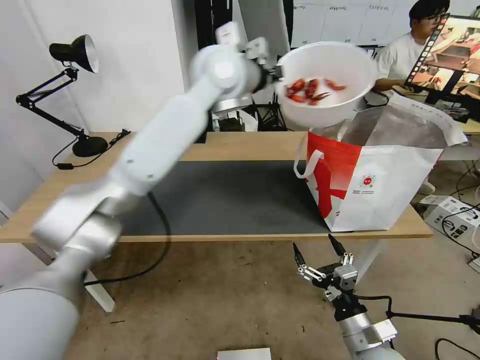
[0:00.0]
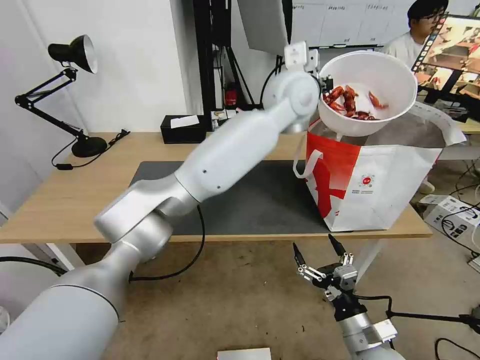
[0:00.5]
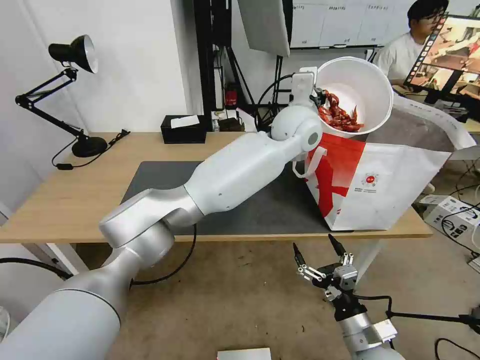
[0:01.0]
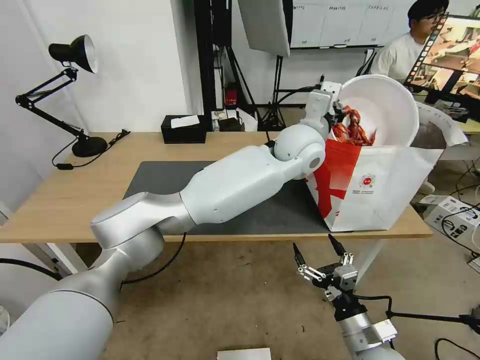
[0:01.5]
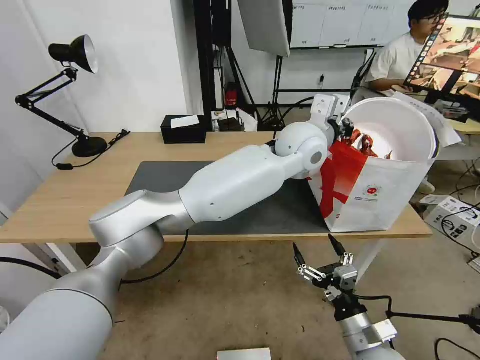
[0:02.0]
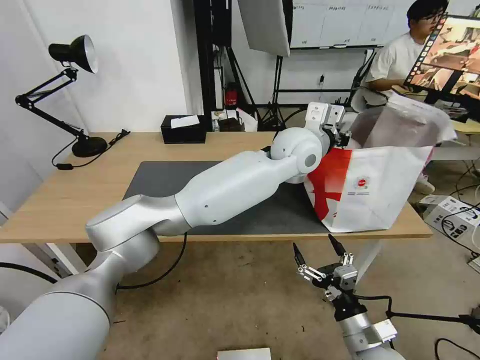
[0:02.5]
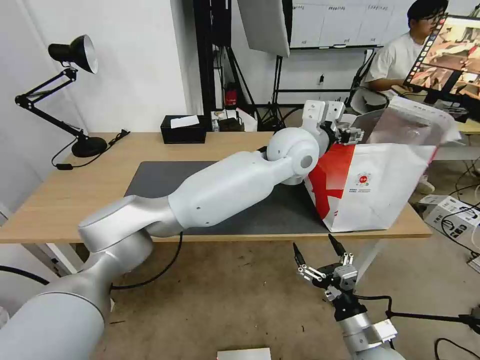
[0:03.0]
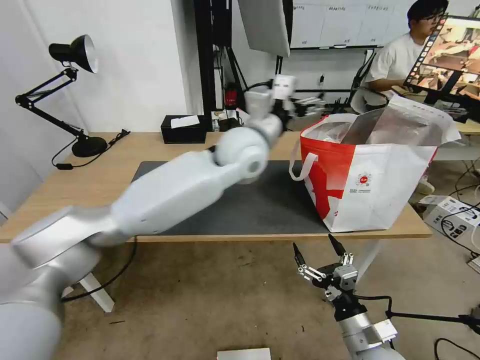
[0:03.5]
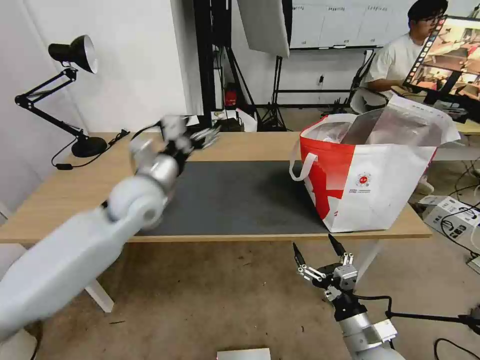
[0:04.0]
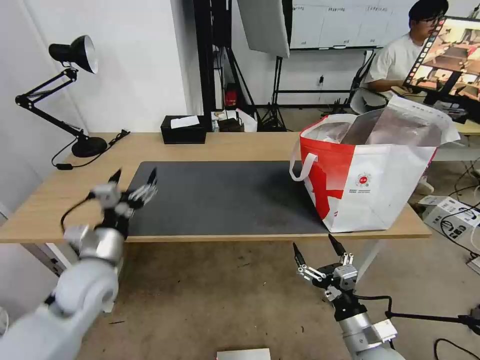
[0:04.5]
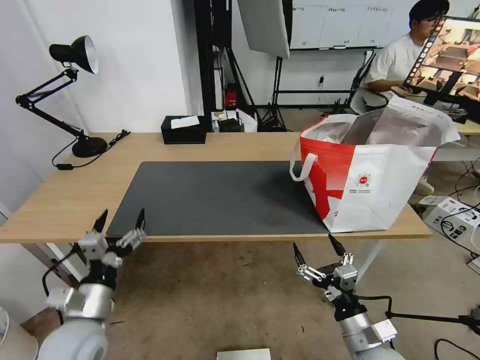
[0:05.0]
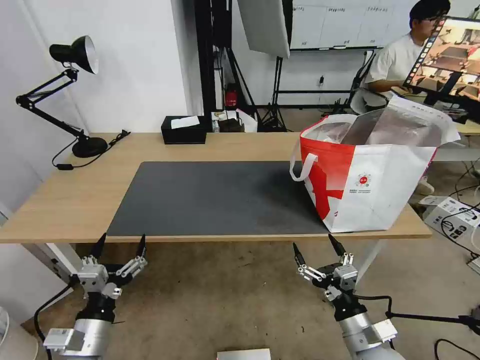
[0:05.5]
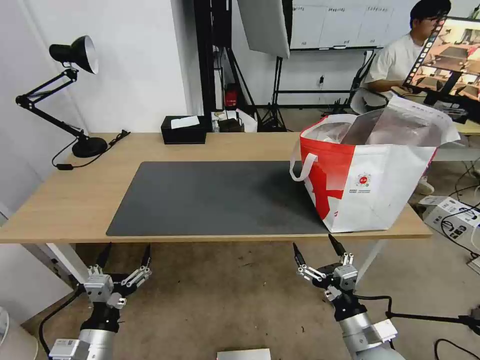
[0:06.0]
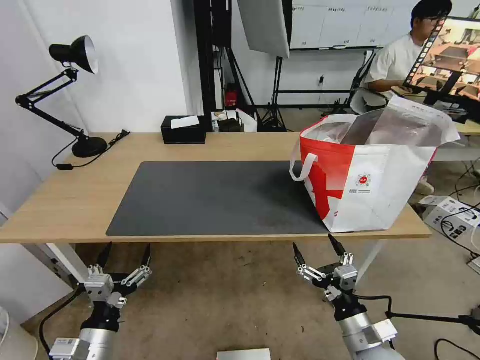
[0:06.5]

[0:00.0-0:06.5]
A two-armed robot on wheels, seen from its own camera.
Task of the whole recording: Pick up the trash from the table and place it into the takeout bag.
0:00.0 to 0:02.0: The left gripper shifts some 25 cm to the right and downward.
0:02.0 to 0:04.5: The left gripper travels to the left, backward and downward by some 50 cm, and opens.
0:04.5 to 0:06.5: The left gripper is displaced backward and downward by approximately 20 cm.
